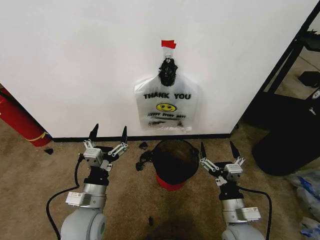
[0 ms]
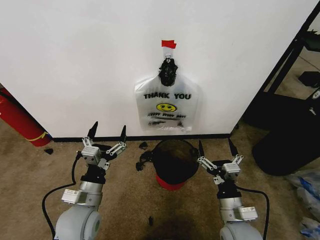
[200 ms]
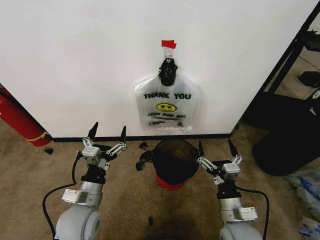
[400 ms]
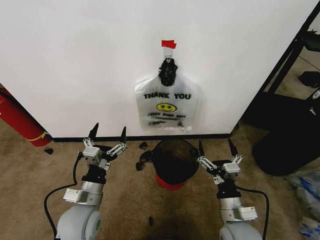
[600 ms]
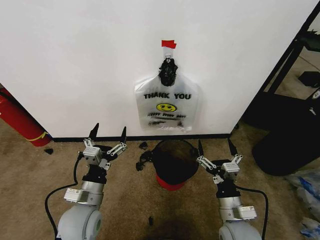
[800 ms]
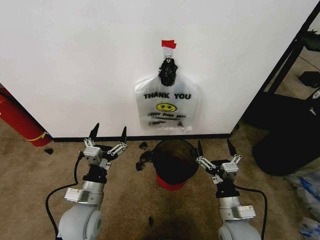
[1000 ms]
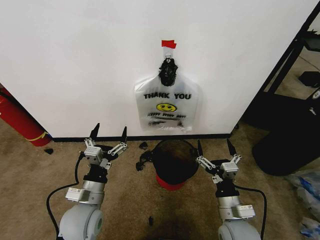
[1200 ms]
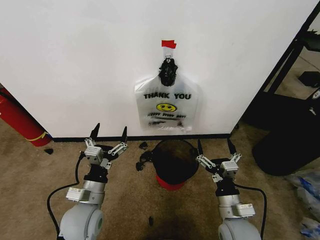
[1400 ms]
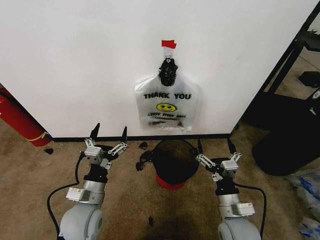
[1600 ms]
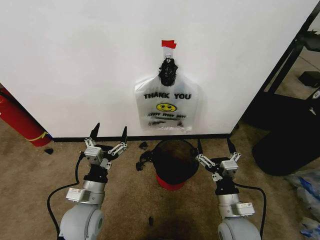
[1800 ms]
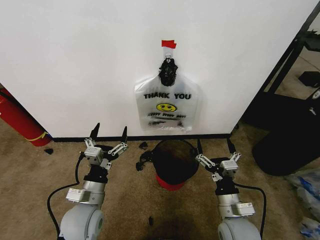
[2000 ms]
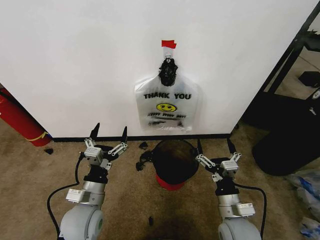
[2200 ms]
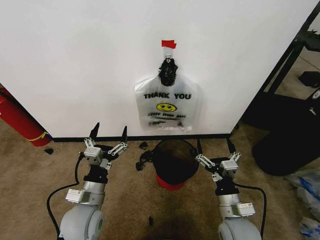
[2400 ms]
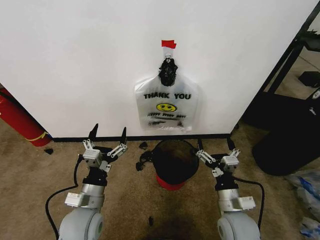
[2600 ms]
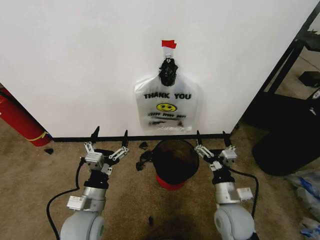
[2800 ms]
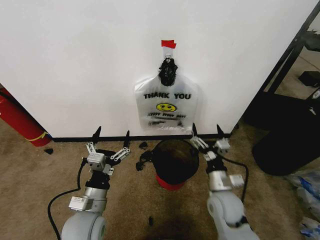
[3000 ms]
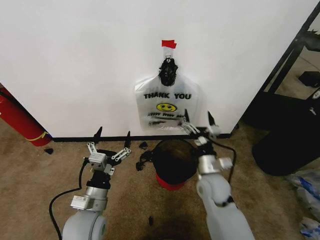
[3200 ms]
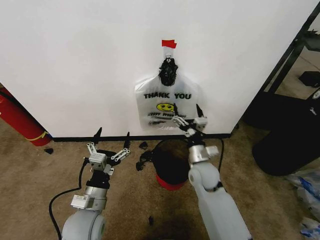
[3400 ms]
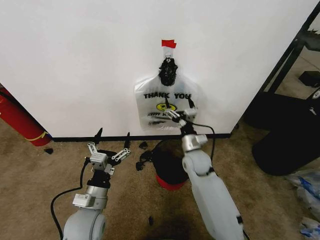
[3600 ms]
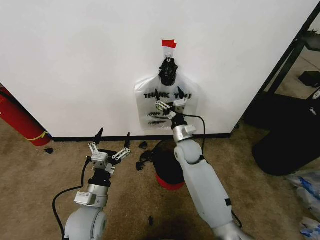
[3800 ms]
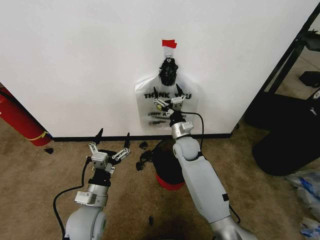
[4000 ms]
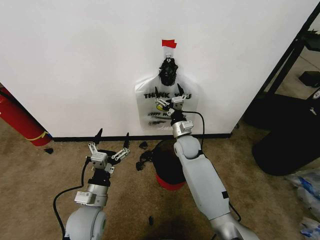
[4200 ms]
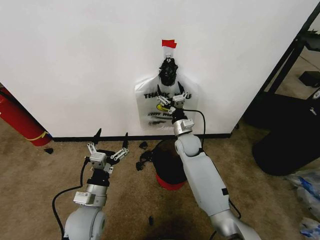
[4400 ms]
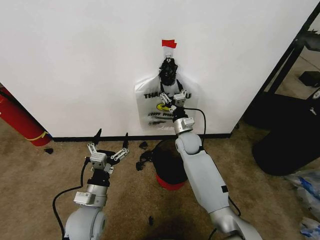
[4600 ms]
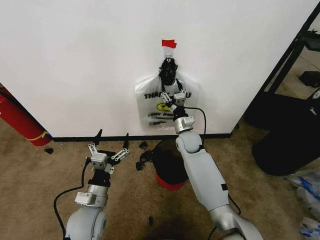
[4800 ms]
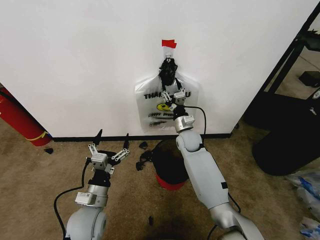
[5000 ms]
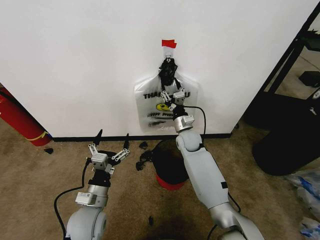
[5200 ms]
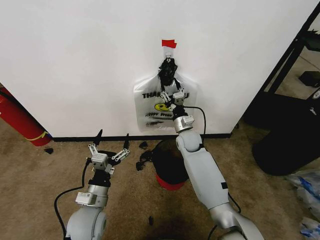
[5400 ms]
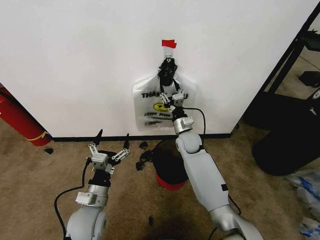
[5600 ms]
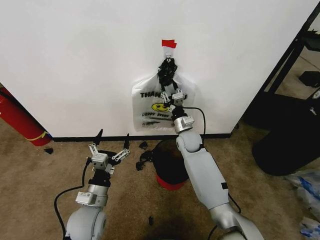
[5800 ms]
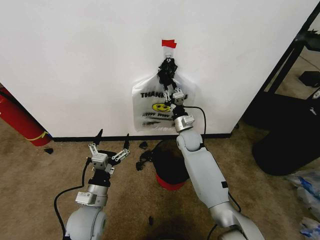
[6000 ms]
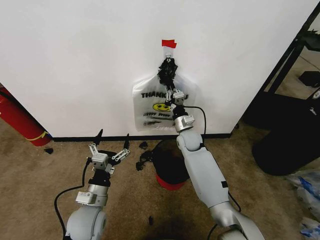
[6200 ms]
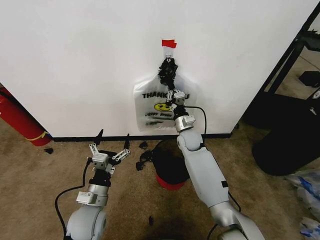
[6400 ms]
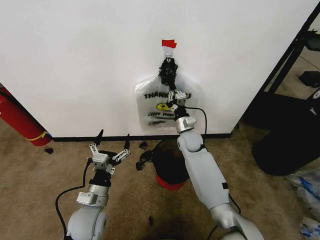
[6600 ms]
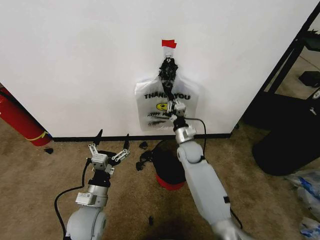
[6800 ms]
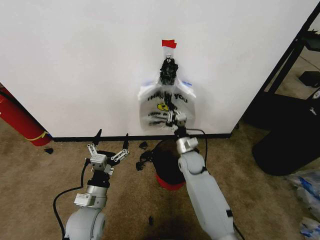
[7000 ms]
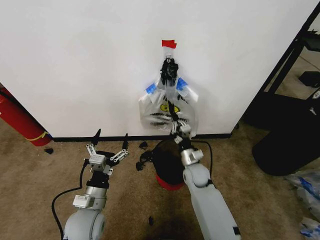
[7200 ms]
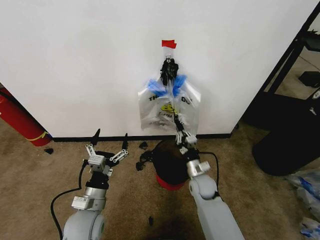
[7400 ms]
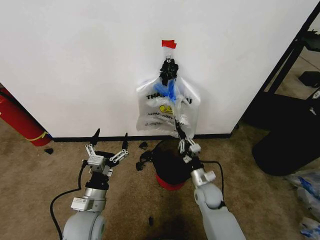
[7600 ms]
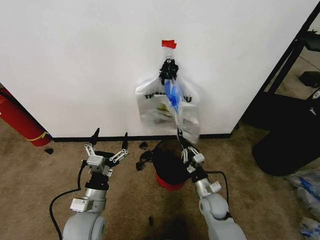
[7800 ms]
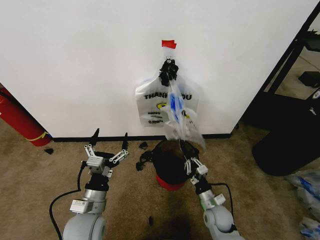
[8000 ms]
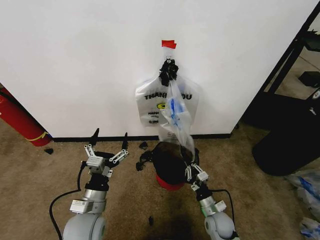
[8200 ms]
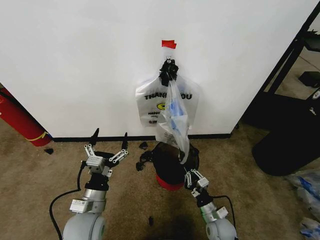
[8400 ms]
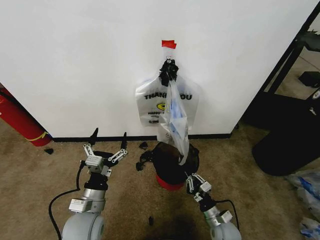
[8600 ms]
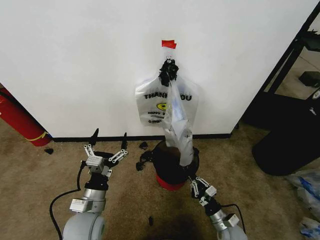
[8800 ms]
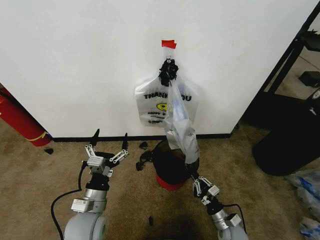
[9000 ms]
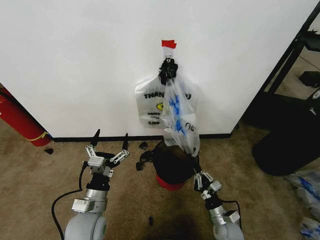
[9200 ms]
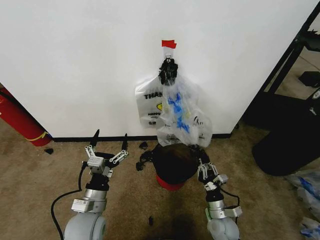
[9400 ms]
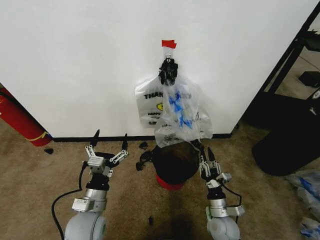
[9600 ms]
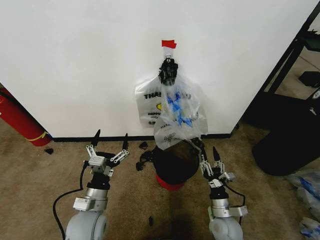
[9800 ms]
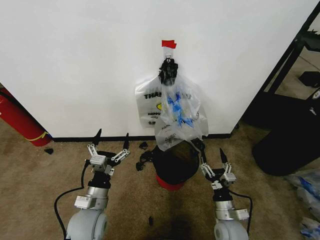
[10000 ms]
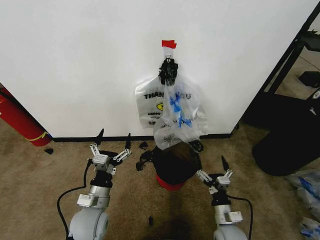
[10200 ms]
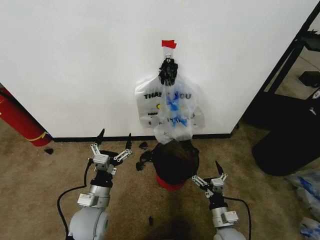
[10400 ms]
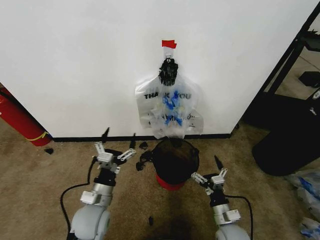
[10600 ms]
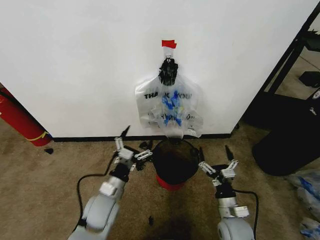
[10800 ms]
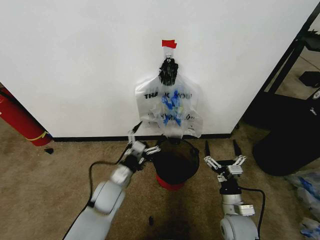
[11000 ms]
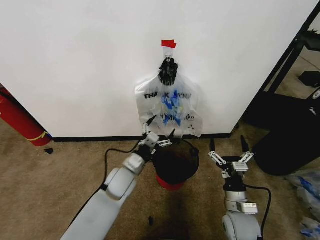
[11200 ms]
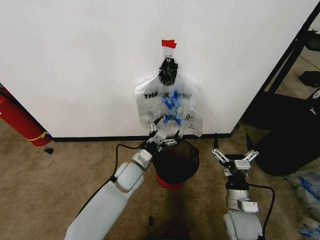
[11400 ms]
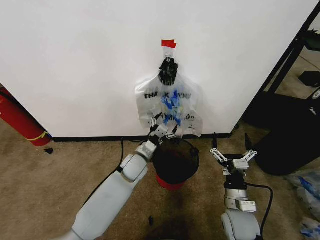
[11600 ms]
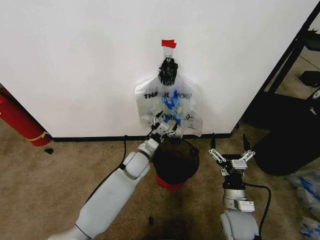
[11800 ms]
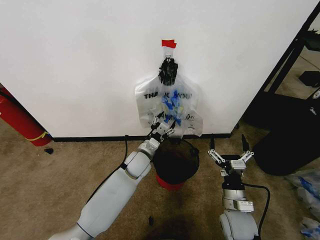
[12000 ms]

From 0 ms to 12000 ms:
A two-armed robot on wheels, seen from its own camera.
Task of the whole recording: Pick up the garbage bag from the wall and place it over the trash bin.
From 1600 ms to 3000 ms: The right gripper moves forward, approximately 10 cm.
From 3000 ms to 4400 ms: The right gripper moves forward, approximately 20 cm.
From 4400 ms to 6000 ms: The right gripper closes up.
From 6000 ms to 7600 ms: The right gripper goes some 20 cm backward and downward.
From 7600 ms to 9000 ms: The right gripper shifts approximately 15 cm backward, downward and to the right.
From 9000 ms to 10400 ms: The right gripper moves upward, some 5 cm, and opens up.
From 10400 ms to 12000 ms: The left gripper travels forward and to the right by roughly 20 cm, while the right gripper is displaced upward by approximately 10 cm.

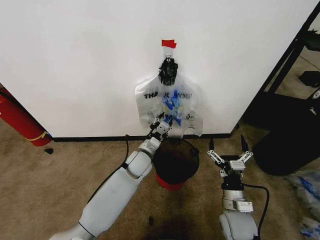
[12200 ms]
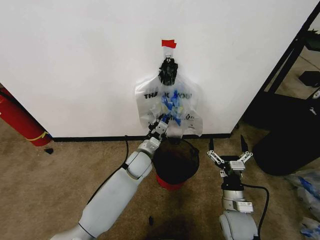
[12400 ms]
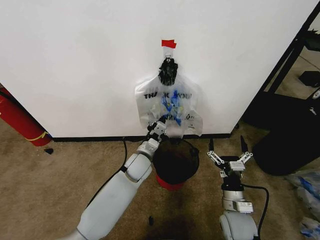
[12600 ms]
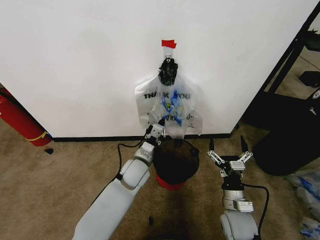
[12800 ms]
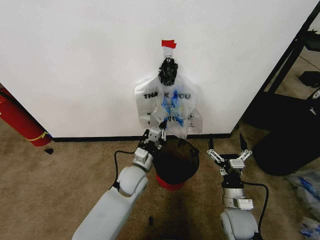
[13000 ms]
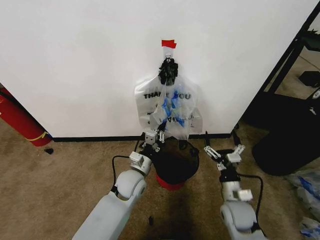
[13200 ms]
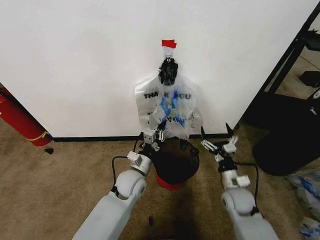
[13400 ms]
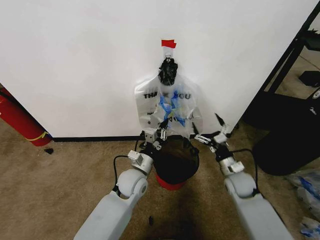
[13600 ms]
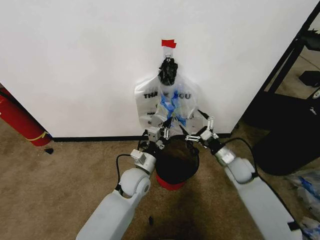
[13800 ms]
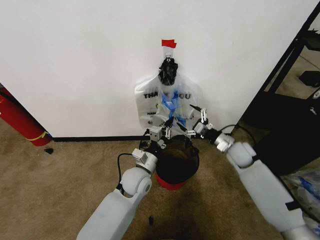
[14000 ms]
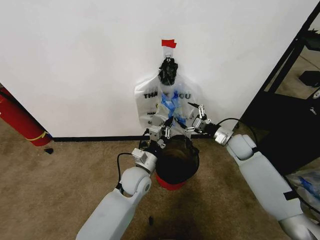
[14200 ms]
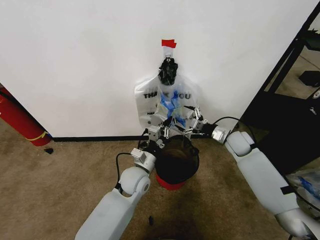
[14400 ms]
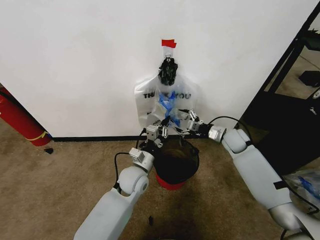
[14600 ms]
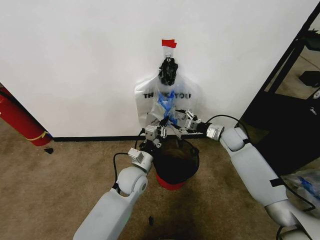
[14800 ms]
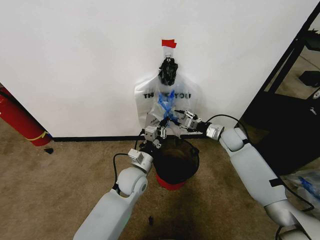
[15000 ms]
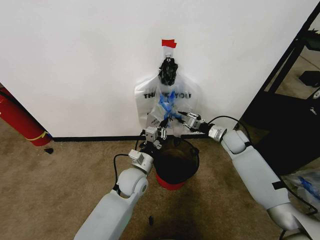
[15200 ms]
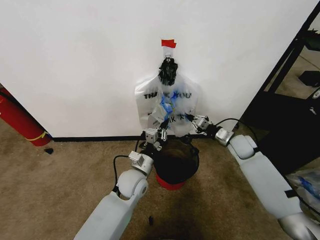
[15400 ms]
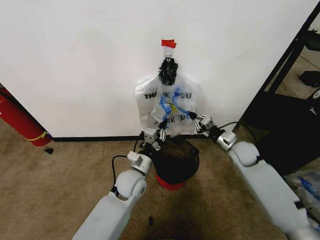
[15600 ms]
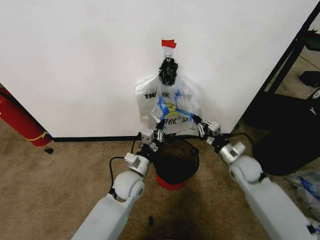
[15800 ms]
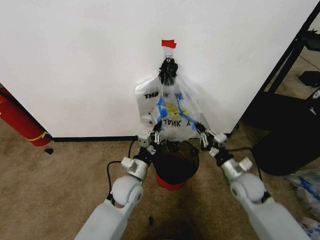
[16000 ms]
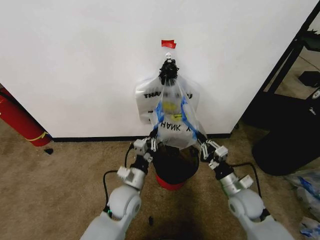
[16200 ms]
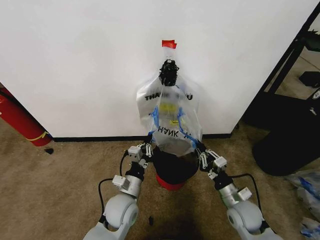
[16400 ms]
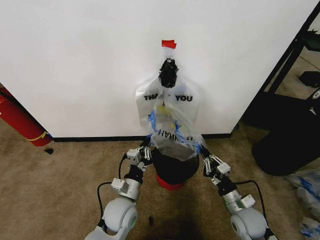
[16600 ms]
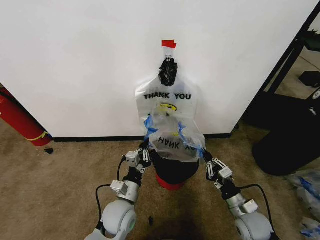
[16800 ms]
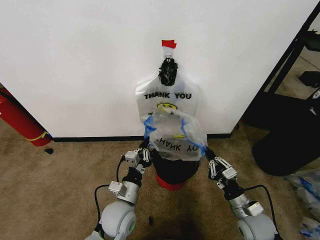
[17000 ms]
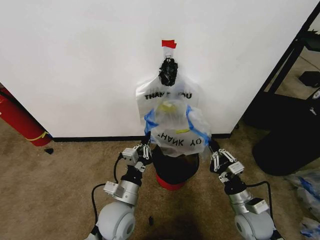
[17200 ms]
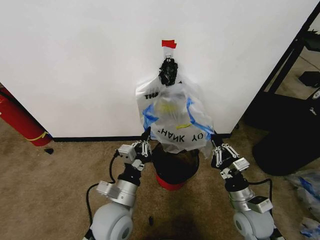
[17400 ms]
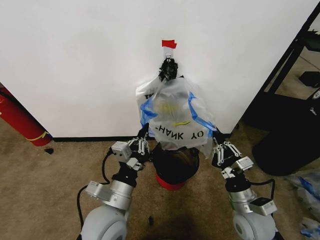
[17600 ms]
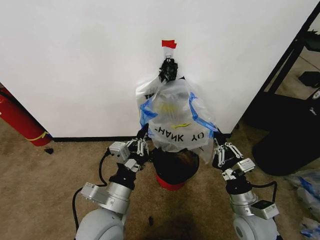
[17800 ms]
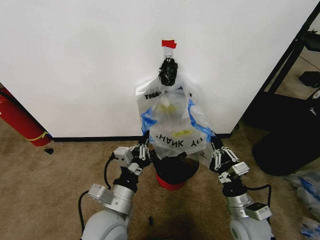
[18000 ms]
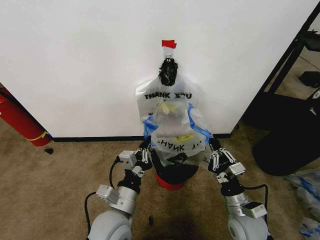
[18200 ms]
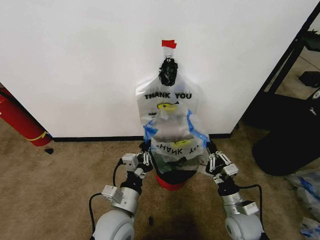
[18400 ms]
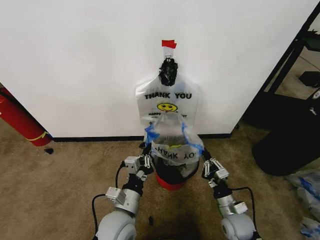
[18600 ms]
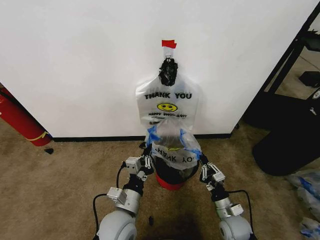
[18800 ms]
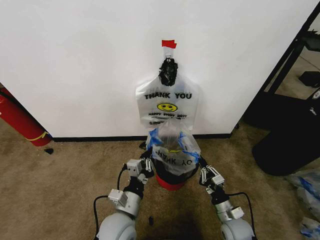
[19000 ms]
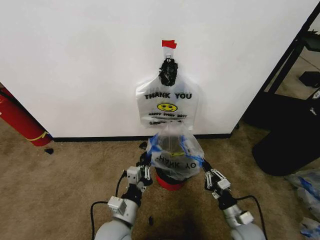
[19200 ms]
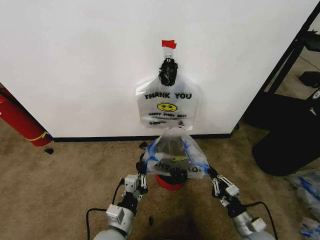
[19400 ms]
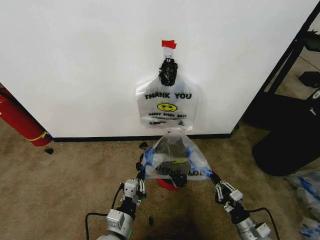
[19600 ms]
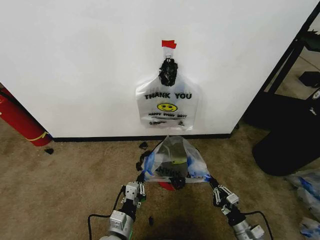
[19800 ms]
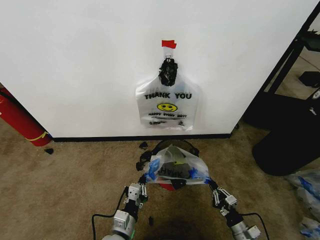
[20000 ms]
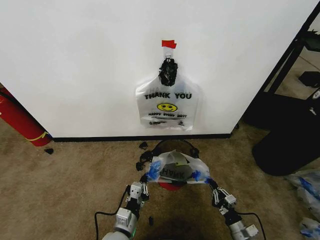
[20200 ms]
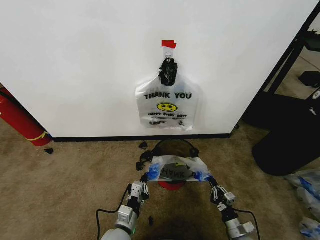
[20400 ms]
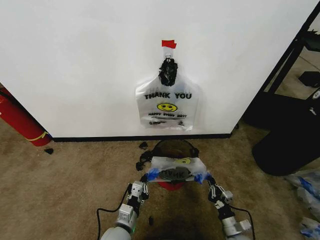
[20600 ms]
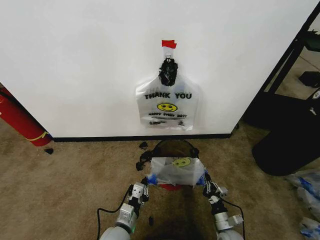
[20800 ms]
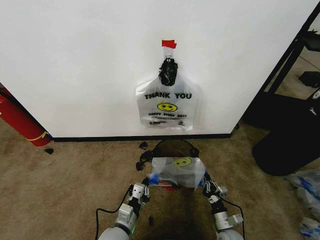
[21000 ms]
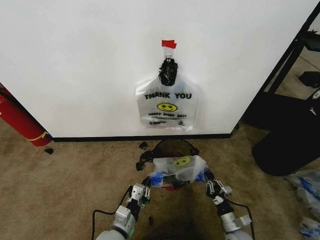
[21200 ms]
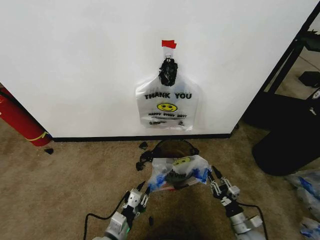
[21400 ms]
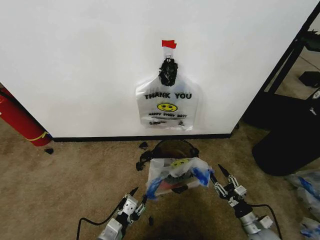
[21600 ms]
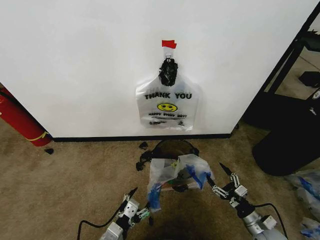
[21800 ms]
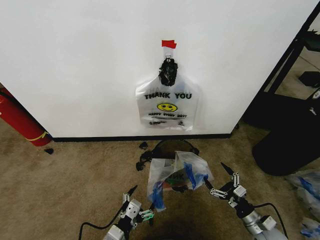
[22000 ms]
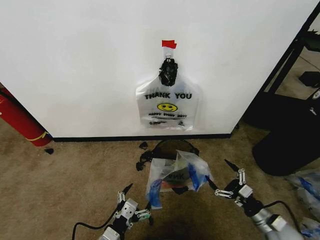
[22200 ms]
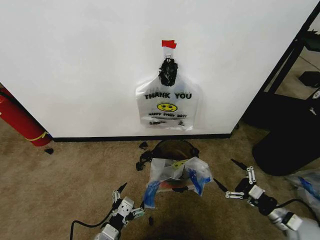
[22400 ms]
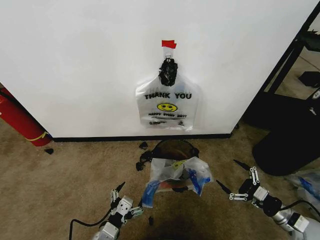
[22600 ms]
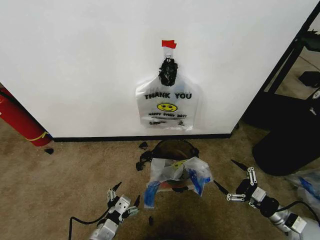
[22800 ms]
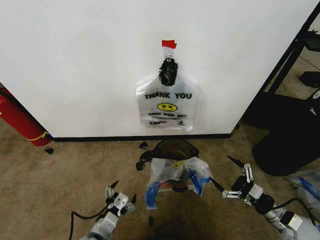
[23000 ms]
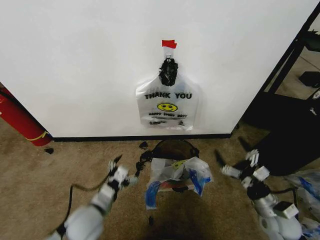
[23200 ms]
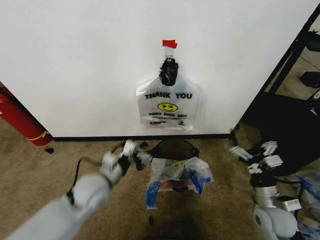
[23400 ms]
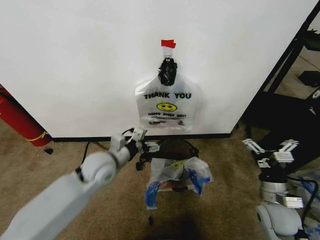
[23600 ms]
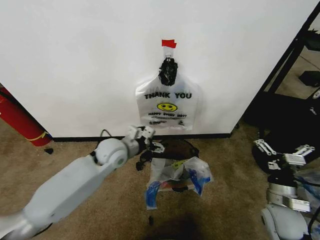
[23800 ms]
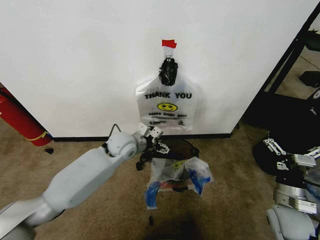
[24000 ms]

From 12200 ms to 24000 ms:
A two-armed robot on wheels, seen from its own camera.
Task of the whole recording: Pick up the garbage bag from the wall and place it over the trash bin.
From 12200 ms to 13600 ms: The left gripper heads backward, covering about 10 cm, and closes up, while the right gripper travels forward by about 5 cm.
From 13600 ms to 15200 ms: The right gripper is displaced forward and upward by about 25 cm, and closes up.
From 15200 ms to 16600 ms: The left gripper is displaced backward by approximately 10 cm, while the right gripper travels backward by about 25 cm.
From 16600 ms to 18200 ms: The left gripper moves upward and backward, some 10 cm. Meanwhile the right gripper ends up some 5 cm from where it was.
From 18200 ms to 19600 ms: The left gripper travels downward by about 10 cm. Meanwhile the right gripper heads downward and to the right, covering some 15 cm.
From 19600 ms to 21000 ms: The left gripper shifts approximately 5 cm downward. Meanwhile the right gripper heads downward, covering roughly 10 cm.
From 21000 ms to 22600 ms: The right gripper travels upward and to the right by some 15 cm, and opens its fingers; the left gripper heads backward and upward, covering roughly 10 cm, and opens up.
From 22600 ms to 24000 ms: The right gripper travels upward and to the left by approximately 10 cm. Meanwhile the left gripper moves forward and upward, about 30 cm.
